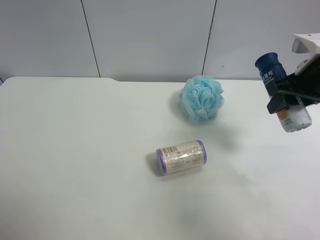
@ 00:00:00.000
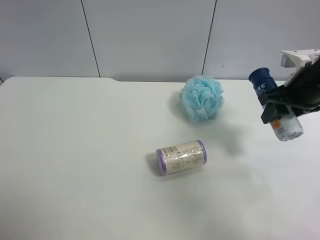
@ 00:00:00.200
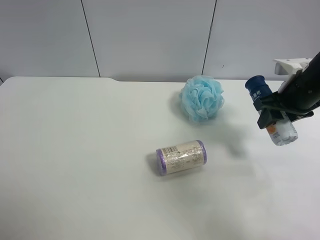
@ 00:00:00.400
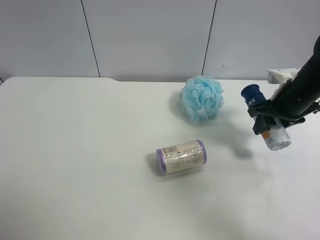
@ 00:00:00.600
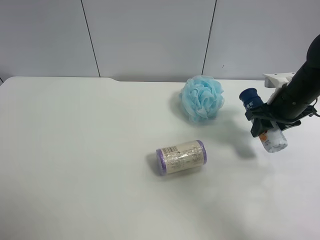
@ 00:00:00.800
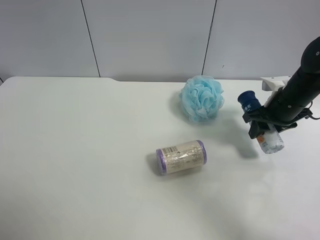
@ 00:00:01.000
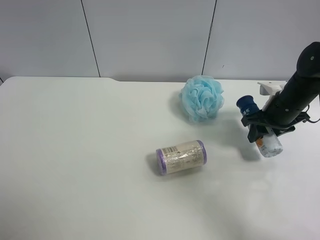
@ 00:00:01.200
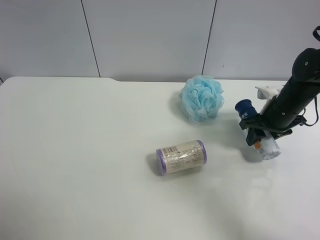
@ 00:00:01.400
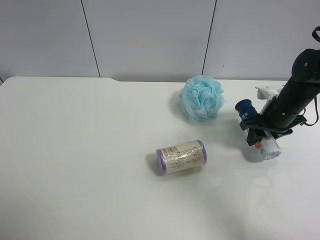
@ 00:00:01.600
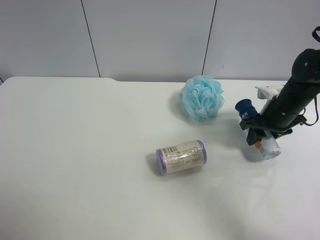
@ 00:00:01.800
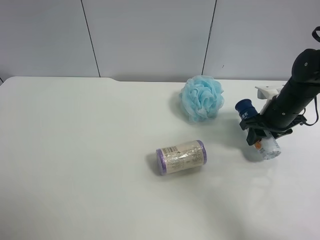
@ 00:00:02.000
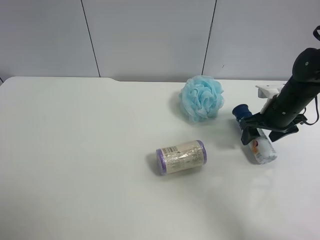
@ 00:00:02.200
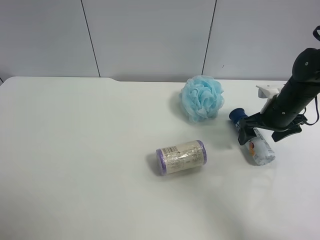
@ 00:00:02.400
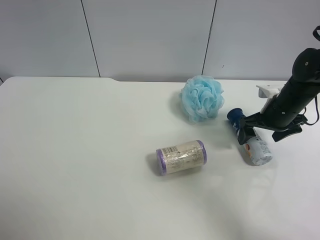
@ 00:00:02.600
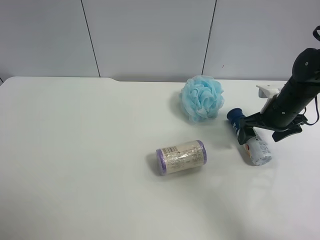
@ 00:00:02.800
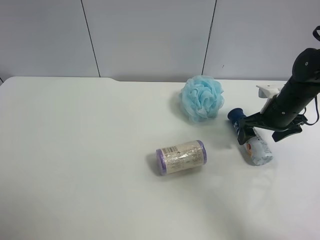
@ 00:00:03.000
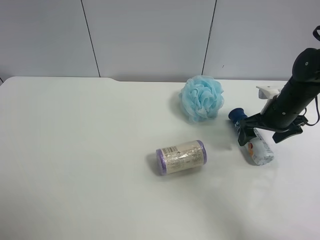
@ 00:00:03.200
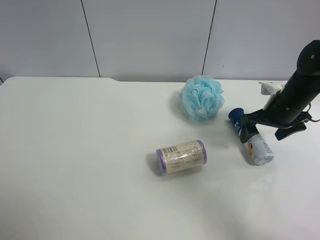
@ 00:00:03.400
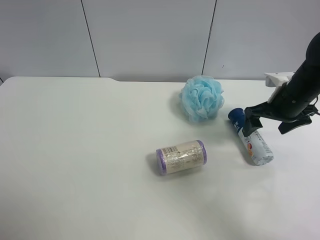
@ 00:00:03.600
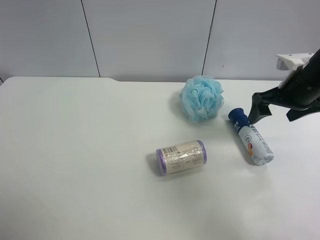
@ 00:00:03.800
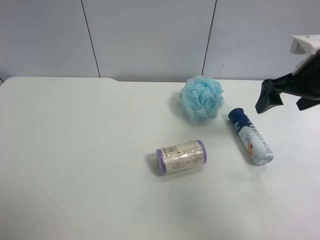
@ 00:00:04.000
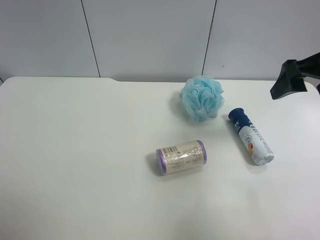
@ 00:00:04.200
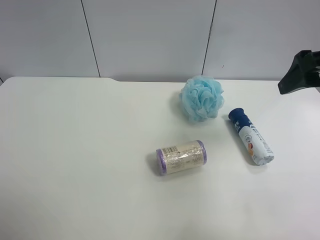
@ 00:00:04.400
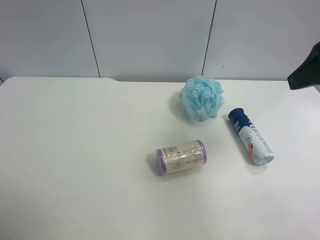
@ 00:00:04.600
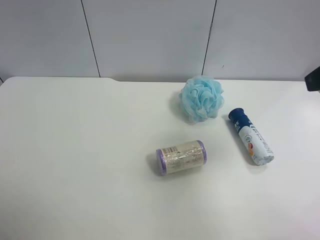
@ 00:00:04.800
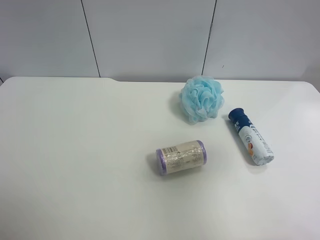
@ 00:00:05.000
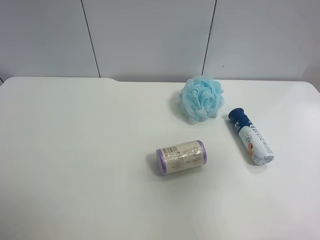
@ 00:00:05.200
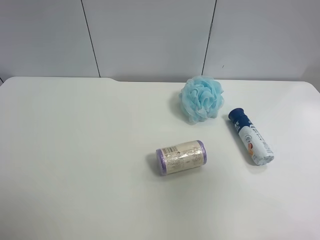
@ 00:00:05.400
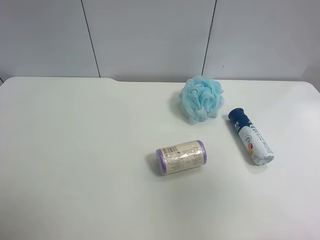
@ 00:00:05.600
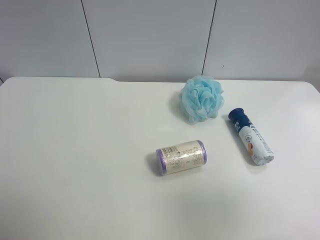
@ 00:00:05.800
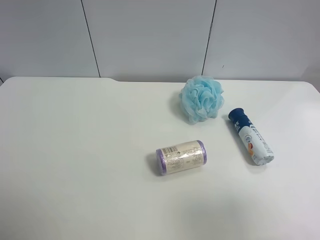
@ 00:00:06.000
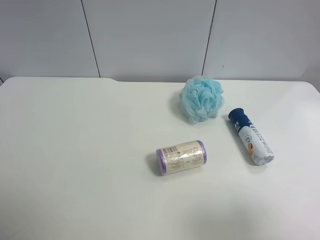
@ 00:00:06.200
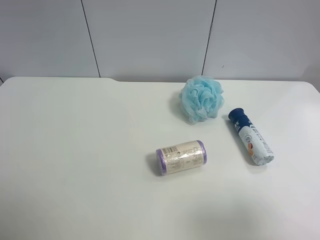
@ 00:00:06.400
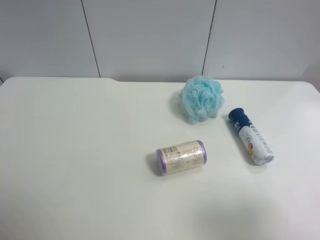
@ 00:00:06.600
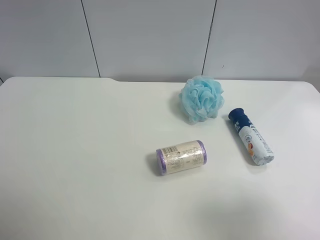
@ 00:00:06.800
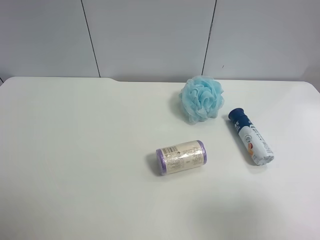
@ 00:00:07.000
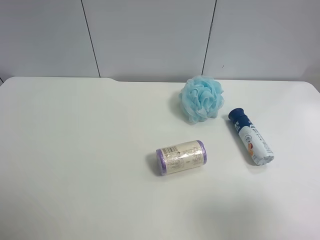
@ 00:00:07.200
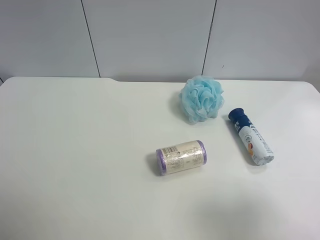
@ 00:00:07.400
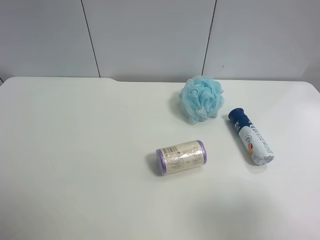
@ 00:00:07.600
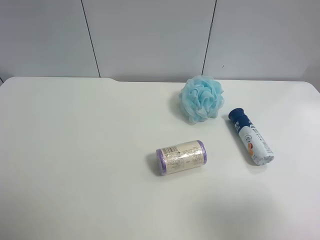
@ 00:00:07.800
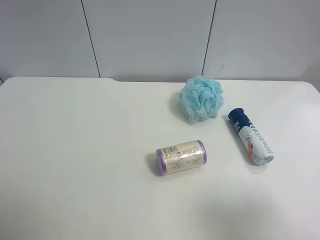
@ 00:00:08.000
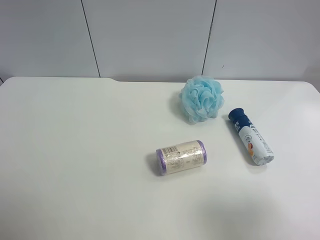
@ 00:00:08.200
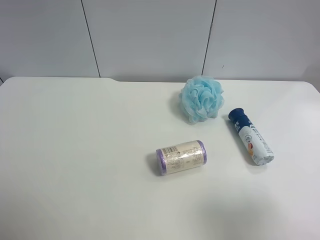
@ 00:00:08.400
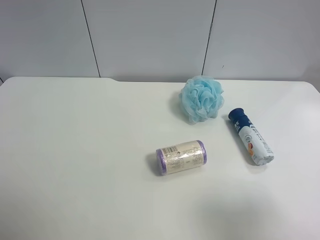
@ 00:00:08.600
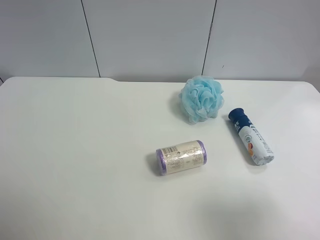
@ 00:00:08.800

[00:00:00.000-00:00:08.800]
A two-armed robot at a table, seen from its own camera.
Task of the whole recording: use the left gripper to pick up the item and transfer it from the left gripper to the right gripper.
00:00:00.000 to 00:00:01.400: The right gripper is displaced downward by about 10 cm.
00:00:01.400 to 00:00:03.000: The right gripper opens up.
00:00:03.000 to 00:00:04.400: The right gripper moves upward and backward, some 25 cm.
00:00:04.400 to 00:00:05.800: The right gripper travels backward by roughly 20 cm.
00:00:05.800 to 00:00:07.400: The right gripper goes roughly 5 cm downward.
